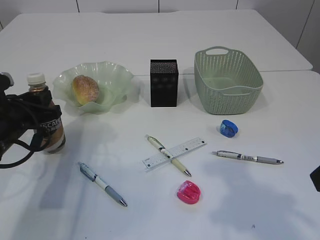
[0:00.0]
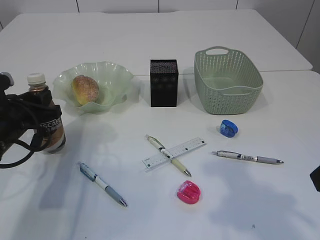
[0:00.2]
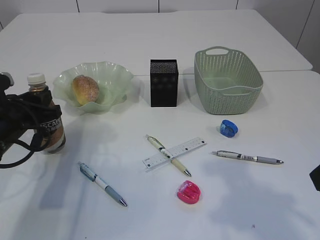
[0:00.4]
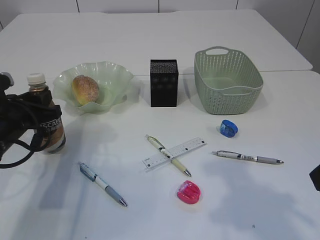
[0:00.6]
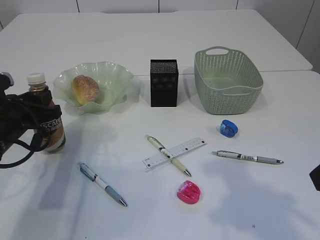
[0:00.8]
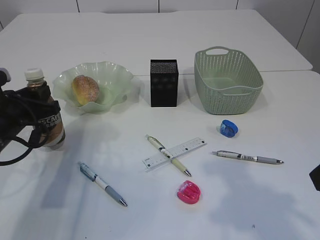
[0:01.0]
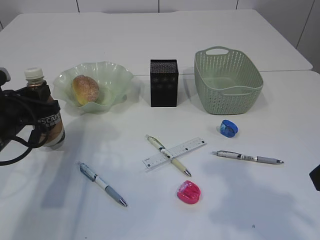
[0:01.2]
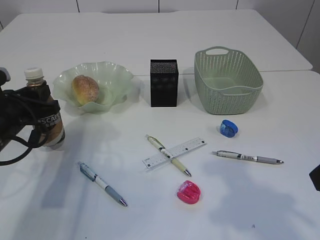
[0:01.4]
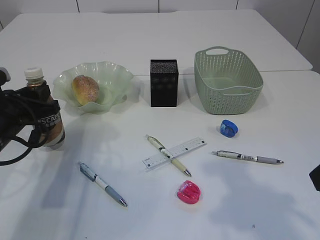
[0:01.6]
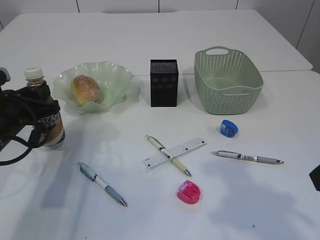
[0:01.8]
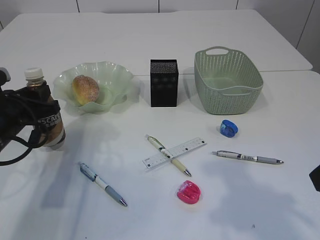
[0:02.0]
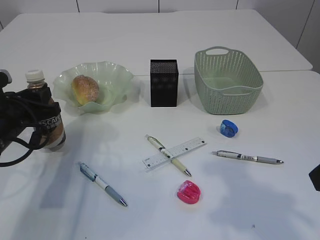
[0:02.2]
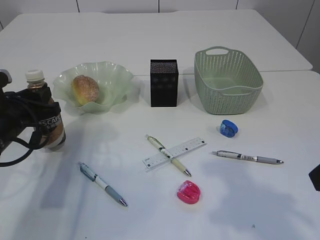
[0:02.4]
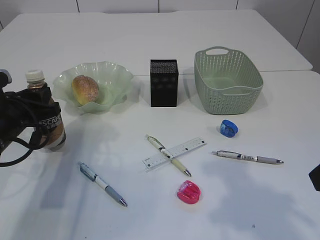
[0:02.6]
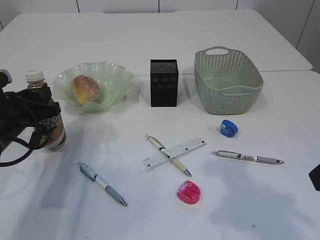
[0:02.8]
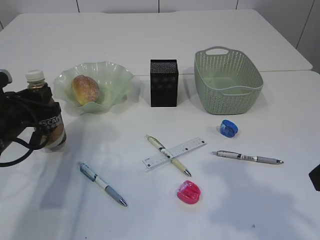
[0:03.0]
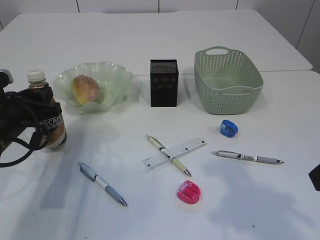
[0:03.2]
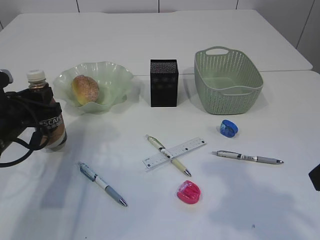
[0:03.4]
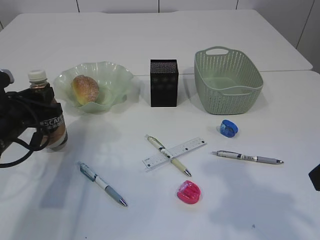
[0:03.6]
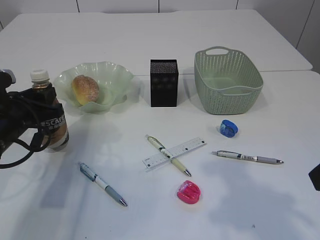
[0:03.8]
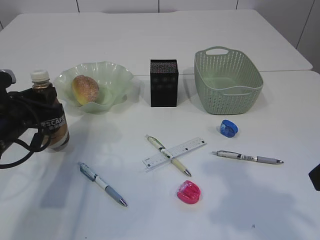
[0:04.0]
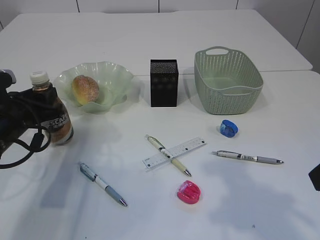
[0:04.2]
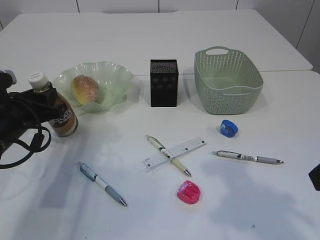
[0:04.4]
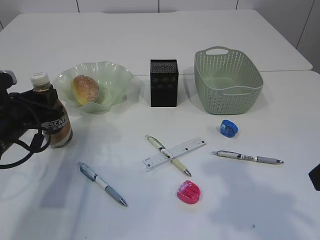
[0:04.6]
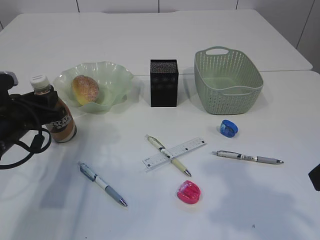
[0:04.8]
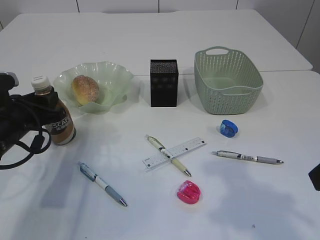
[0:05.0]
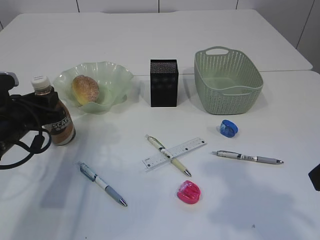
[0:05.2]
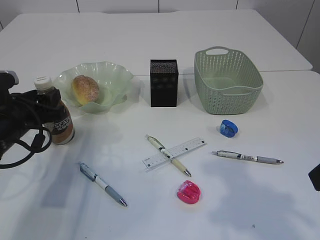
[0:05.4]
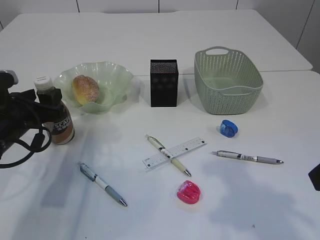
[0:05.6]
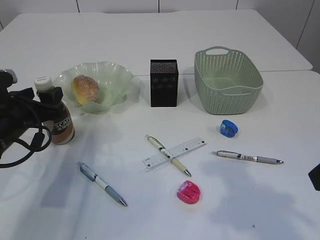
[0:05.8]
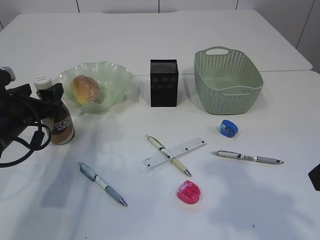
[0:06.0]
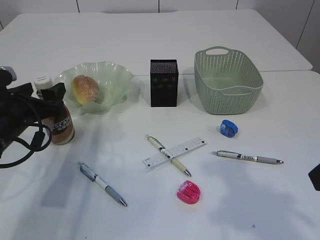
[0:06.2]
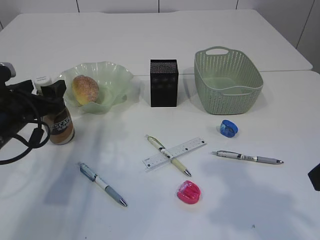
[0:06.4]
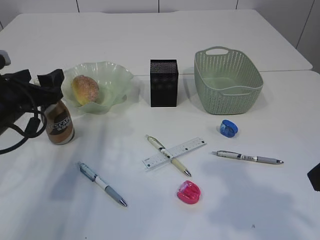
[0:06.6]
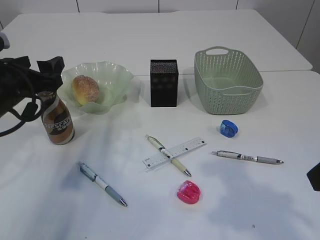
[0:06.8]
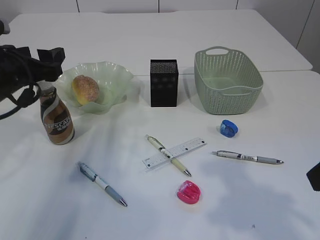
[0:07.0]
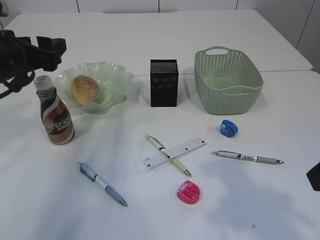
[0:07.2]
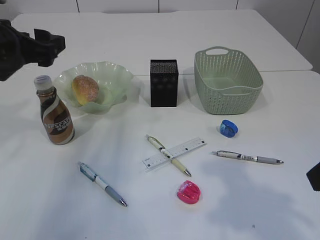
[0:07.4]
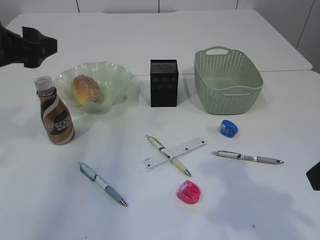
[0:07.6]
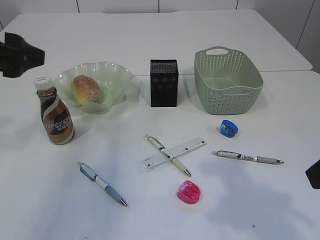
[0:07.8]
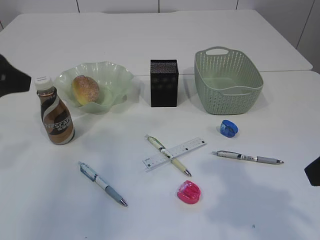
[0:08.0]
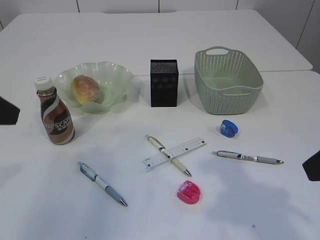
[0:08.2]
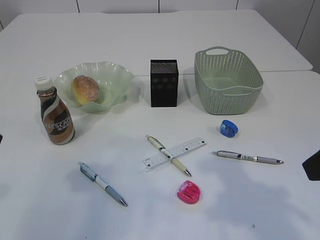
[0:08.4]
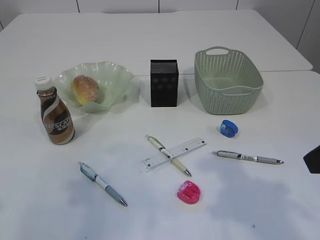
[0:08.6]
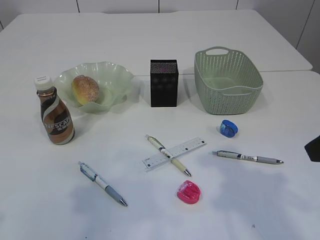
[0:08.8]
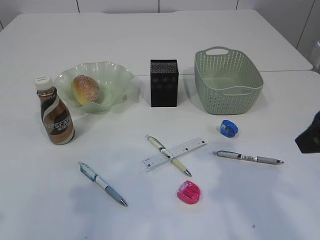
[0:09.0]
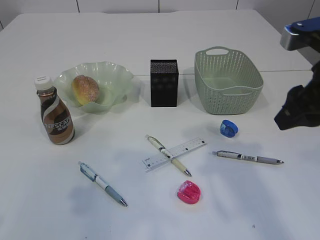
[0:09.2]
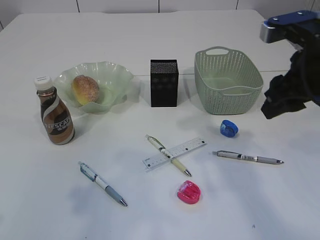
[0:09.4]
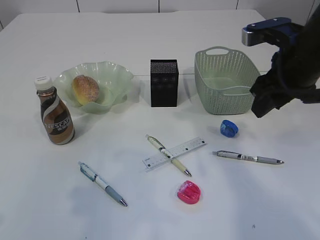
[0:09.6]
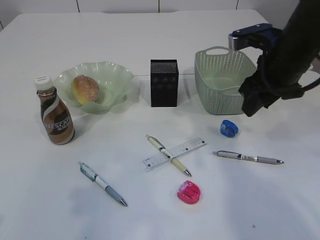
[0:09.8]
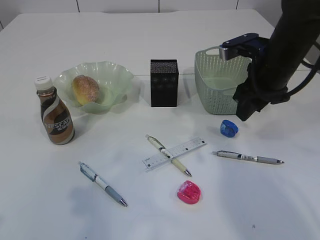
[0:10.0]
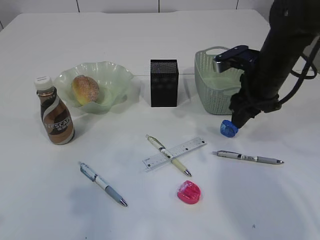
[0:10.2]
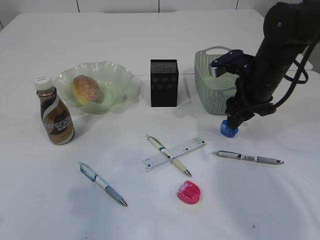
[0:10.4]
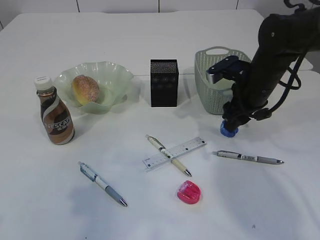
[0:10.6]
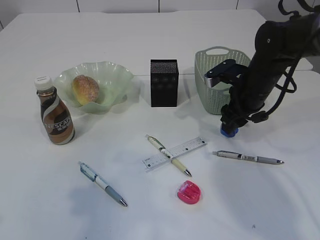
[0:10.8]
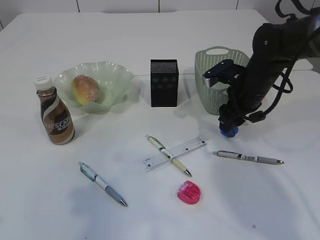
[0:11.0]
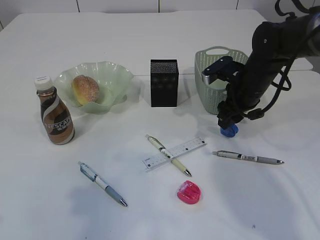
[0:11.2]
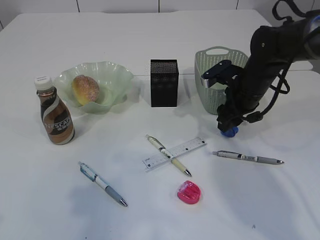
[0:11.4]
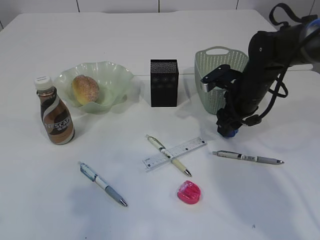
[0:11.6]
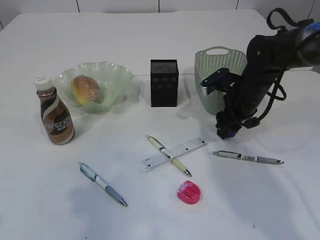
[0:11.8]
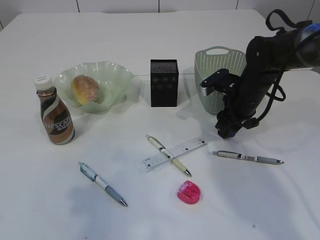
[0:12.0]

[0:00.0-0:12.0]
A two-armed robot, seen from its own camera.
Step, 0:00.0 to 0:07.4: Place the bottle.
0:00.0 to 0:04.4: Both grippers stay put.
0:04.4 to 0:06.0: The left gripper opens its fingers.
0:06.0 to 0:07.6: The left gripper shifts some 15 cm upward.
0:07.6 to 0:09.0: The left gripper heads backward, covering approximately 15 cm.
0:09.0 to 0:10.4: The right gripper moves forward and downward, some 20 cm.
0:10.4 to 0:12.0: The right gripper is displaced downward by approximately 5 cm.

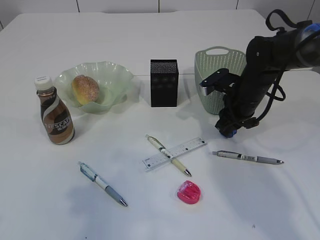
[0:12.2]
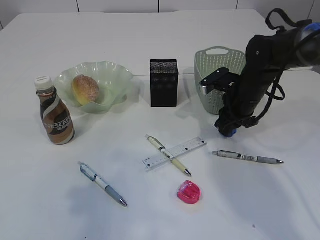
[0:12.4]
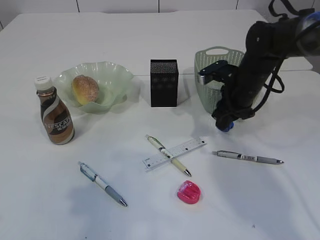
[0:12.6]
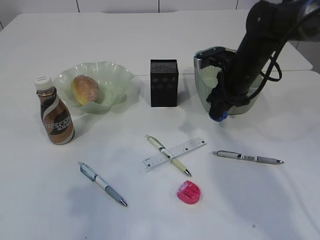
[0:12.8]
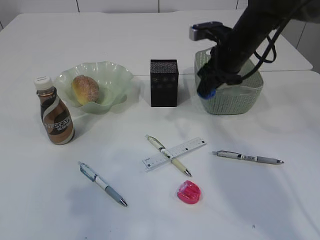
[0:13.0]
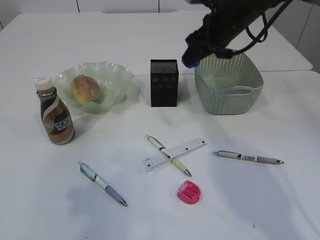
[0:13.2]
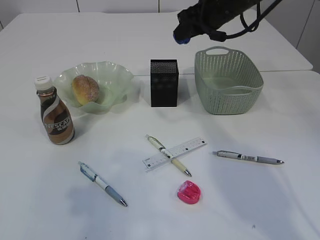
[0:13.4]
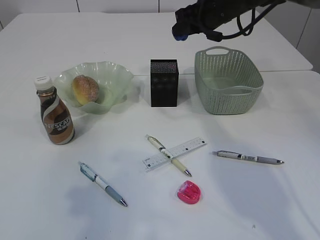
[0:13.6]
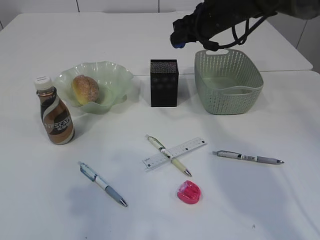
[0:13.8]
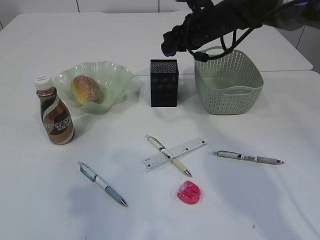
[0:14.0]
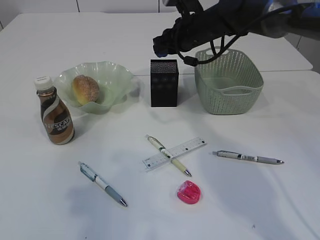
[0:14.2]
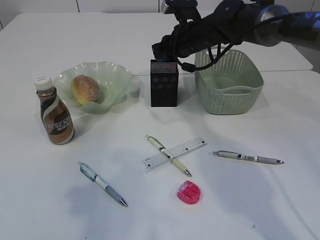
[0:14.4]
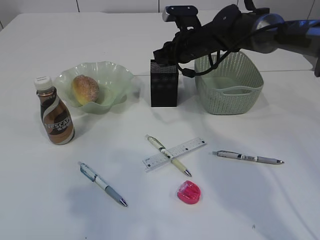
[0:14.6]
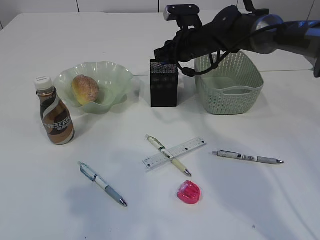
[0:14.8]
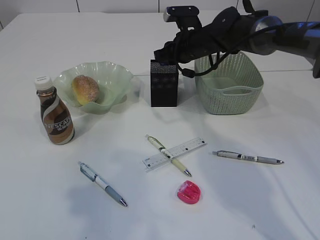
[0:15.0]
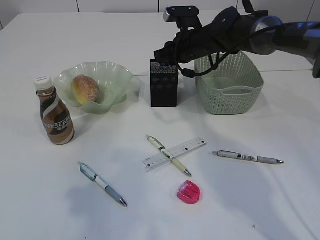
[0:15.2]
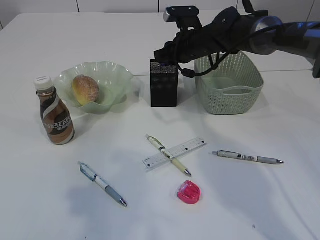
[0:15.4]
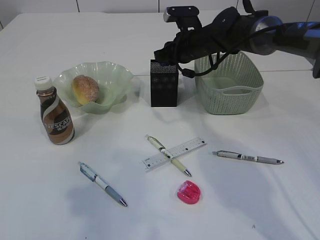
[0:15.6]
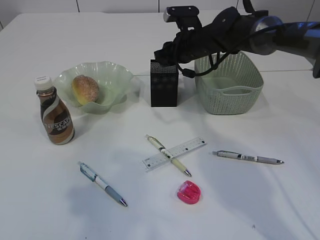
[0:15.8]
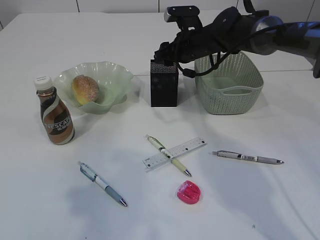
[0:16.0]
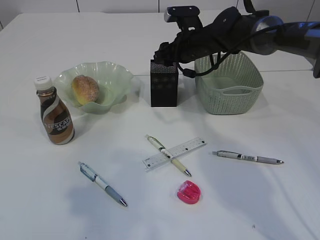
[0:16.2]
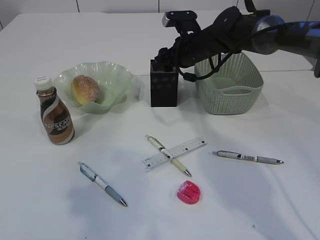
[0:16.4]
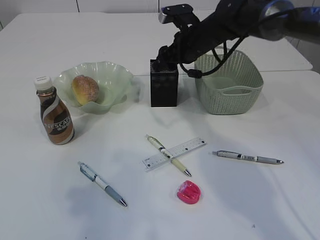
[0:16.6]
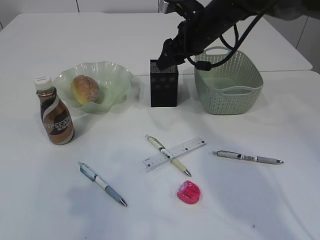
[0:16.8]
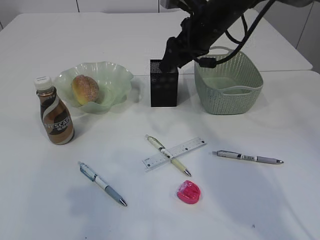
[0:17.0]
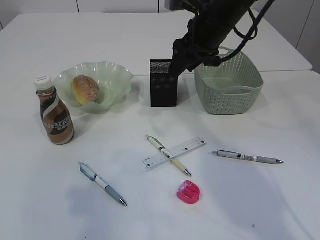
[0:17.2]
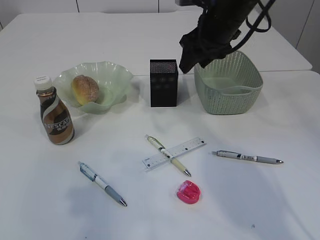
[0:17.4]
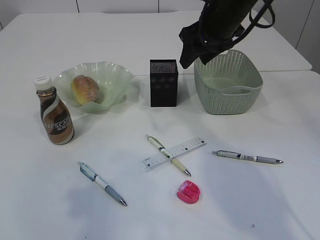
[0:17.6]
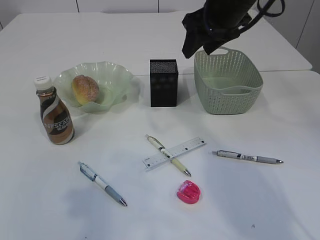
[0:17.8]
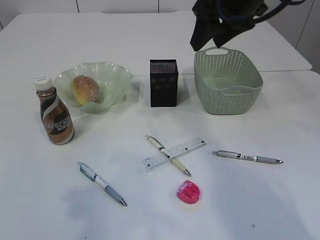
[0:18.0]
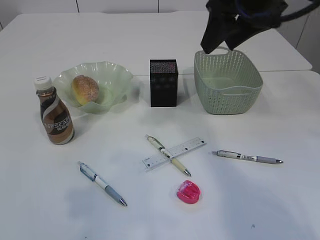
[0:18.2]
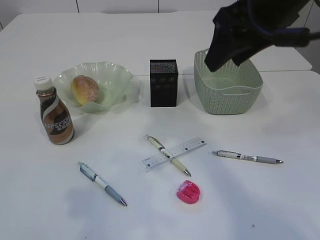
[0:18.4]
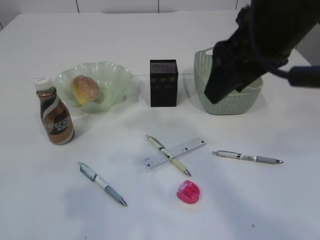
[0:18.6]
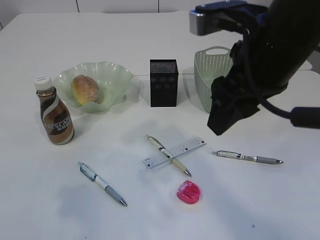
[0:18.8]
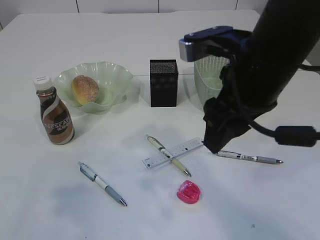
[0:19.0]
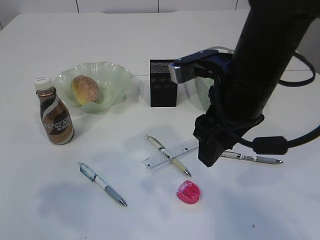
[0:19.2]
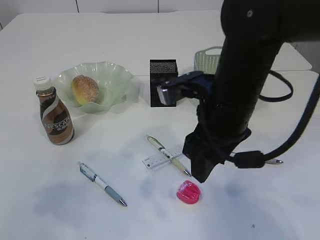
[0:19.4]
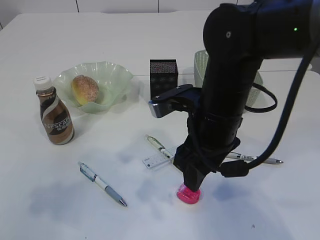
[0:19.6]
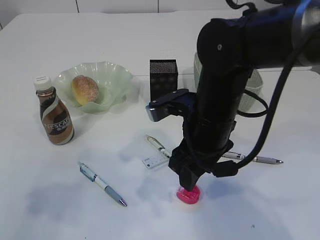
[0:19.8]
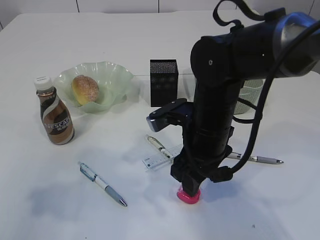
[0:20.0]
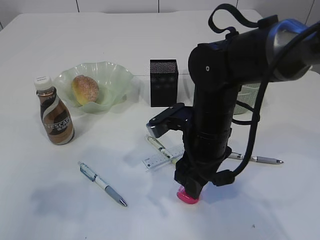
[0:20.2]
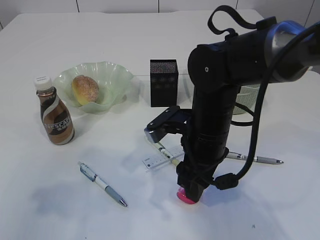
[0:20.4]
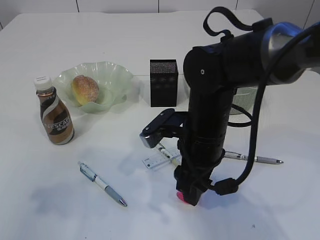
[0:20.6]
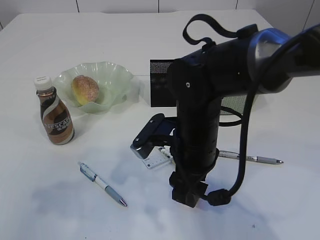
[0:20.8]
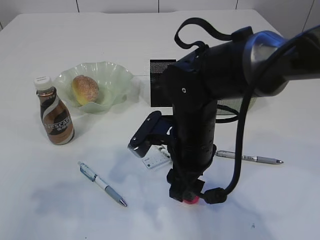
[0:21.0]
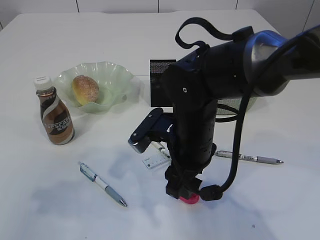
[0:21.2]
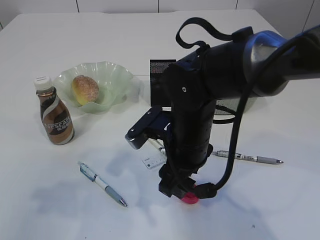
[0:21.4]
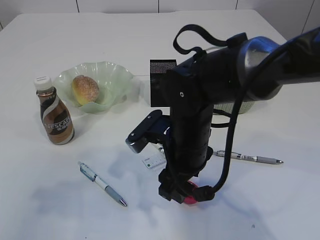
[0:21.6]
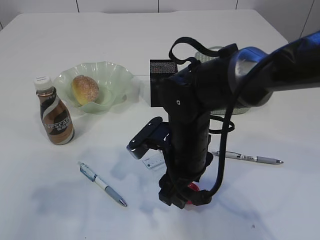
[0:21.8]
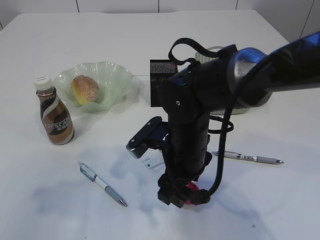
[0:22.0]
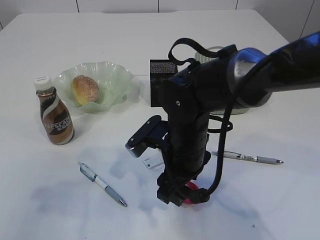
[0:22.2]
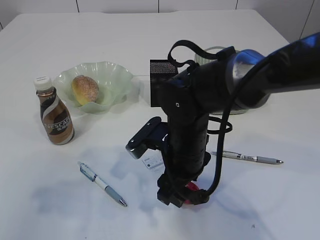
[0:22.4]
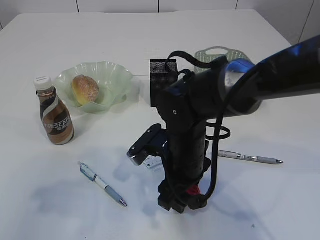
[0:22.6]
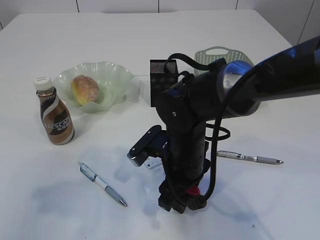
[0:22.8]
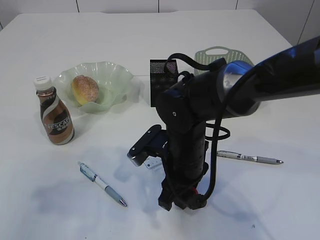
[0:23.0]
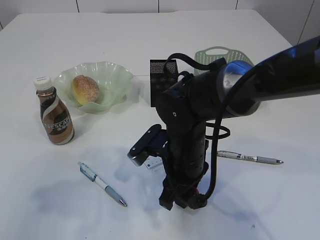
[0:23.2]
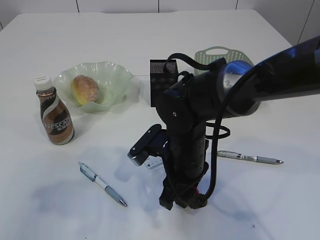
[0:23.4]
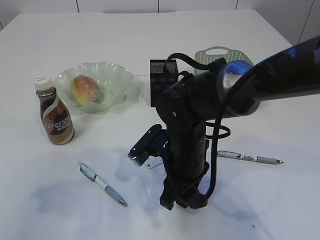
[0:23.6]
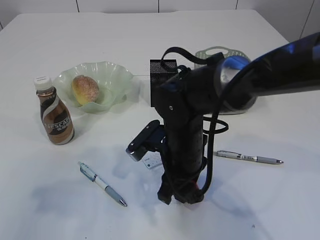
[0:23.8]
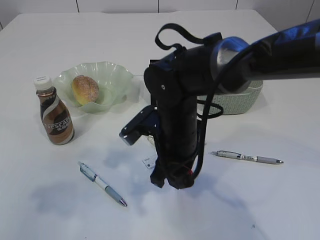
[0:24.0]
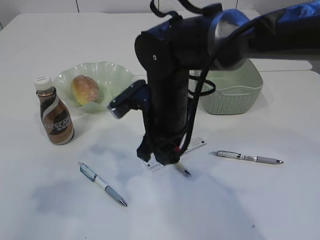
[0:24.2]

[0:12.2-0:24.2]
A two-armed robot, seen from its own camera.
Step, 0:12.8 to 0:17.4: Place the blue pencil sharpener into the pen holder.
0:12.2 to 0:13.8: The right gripper is displaced upward and forward by approximately 15 cm.
0:13.8 to 0:15.2: The right gripper travels downward by approximately 5 cm.
0:15.2 to 0:16.6: The right gripper opens up.
0:16.6 to 0:18.2: The right gripper goes roughly 20 cm upward and backward.
0:18.2 to 0:19.8: The right gripper is displaced downward and to the left by some 20 cm.
0:21.2 to 0:22.6: The grippers move only a little.
0:22.6 to 0:24.2: The right gripper shifts approximately 5 cm upward, and closes up.
